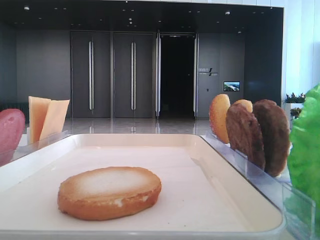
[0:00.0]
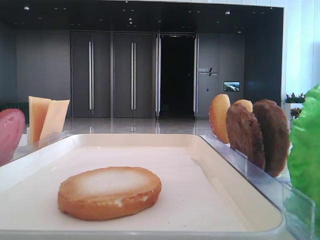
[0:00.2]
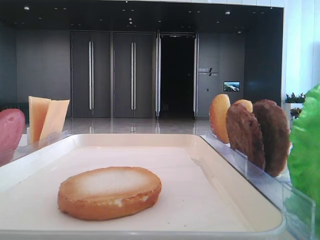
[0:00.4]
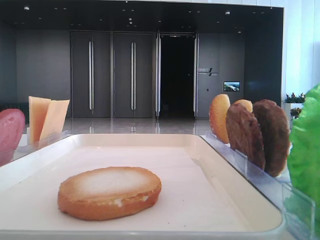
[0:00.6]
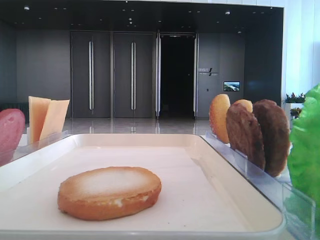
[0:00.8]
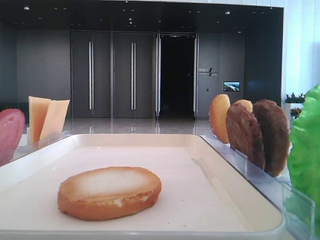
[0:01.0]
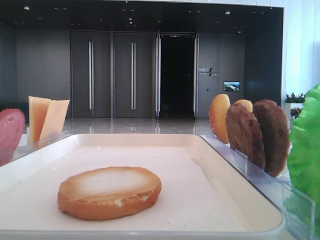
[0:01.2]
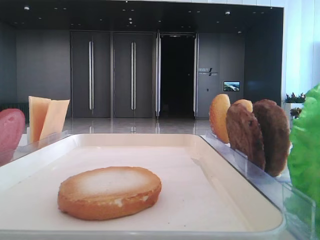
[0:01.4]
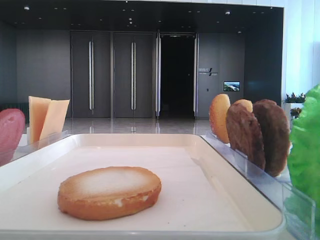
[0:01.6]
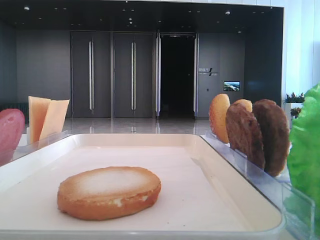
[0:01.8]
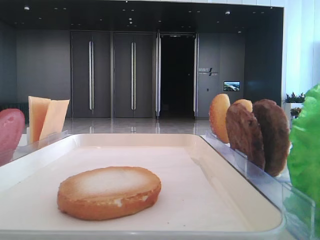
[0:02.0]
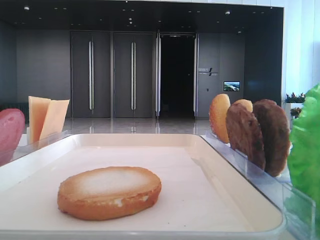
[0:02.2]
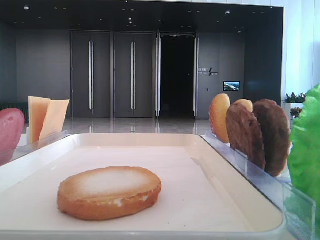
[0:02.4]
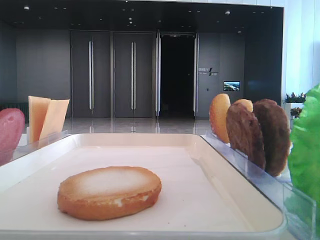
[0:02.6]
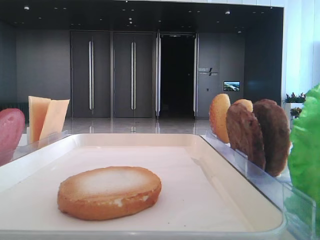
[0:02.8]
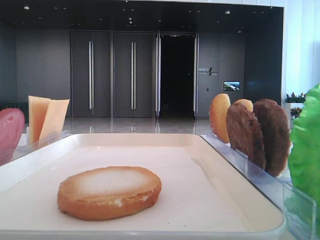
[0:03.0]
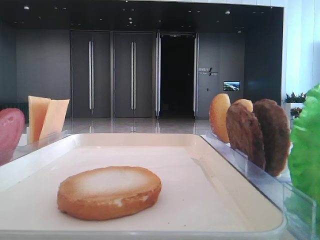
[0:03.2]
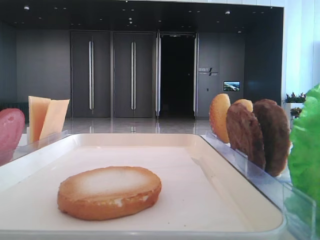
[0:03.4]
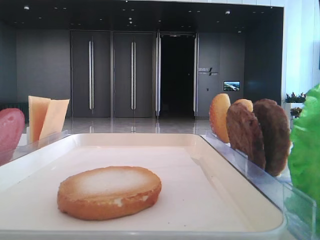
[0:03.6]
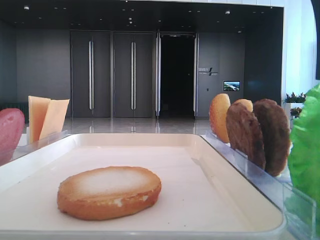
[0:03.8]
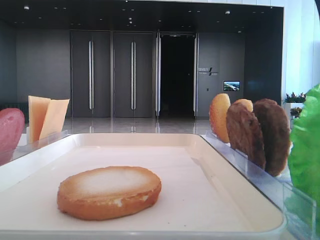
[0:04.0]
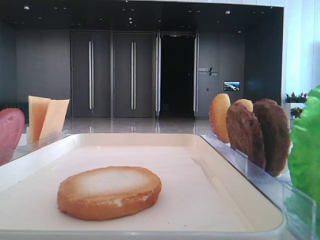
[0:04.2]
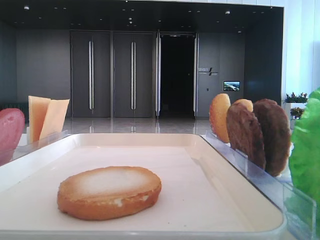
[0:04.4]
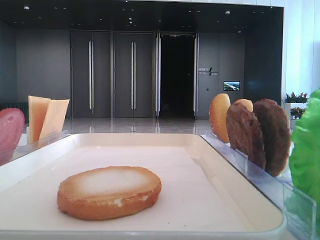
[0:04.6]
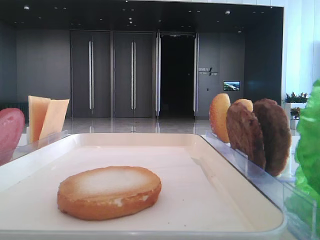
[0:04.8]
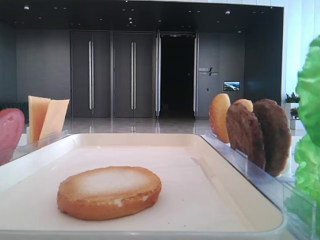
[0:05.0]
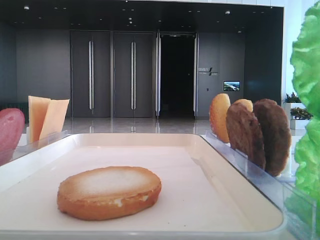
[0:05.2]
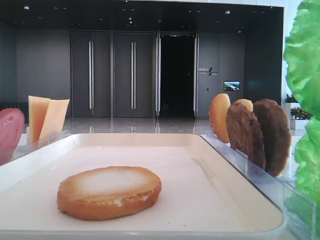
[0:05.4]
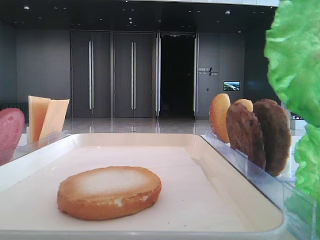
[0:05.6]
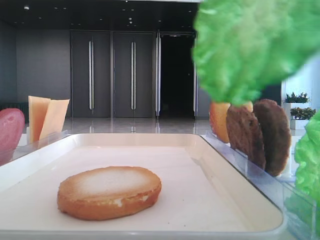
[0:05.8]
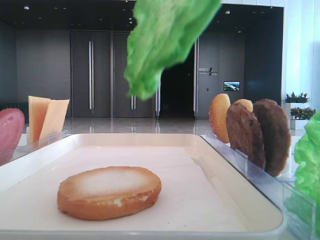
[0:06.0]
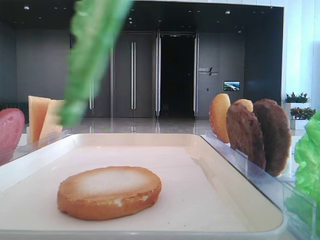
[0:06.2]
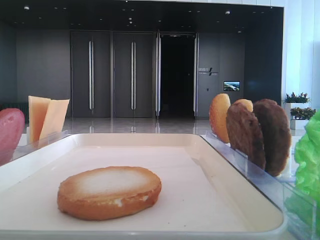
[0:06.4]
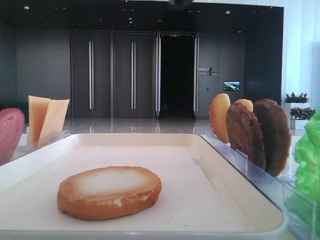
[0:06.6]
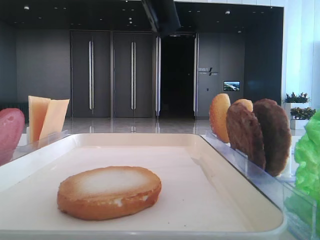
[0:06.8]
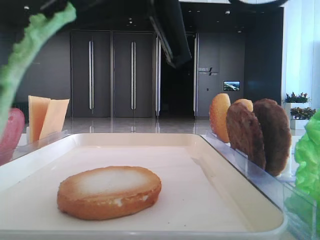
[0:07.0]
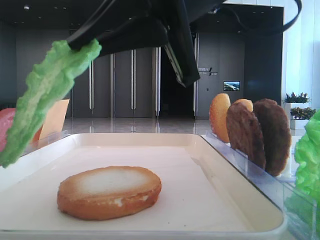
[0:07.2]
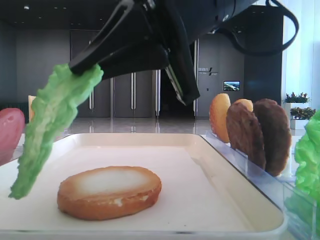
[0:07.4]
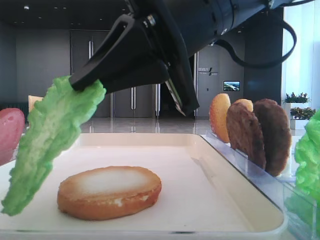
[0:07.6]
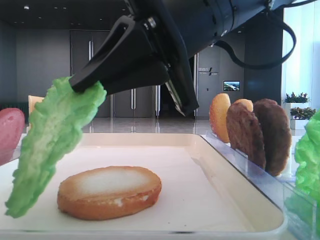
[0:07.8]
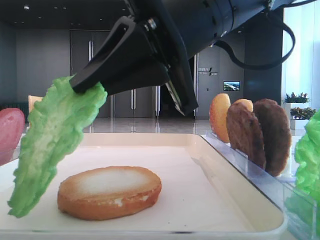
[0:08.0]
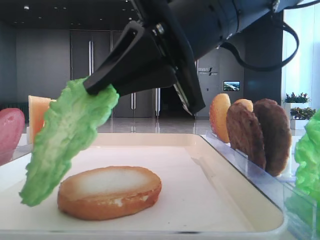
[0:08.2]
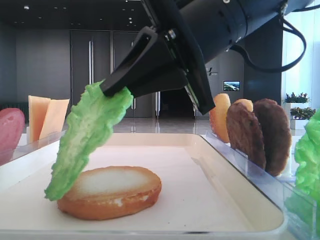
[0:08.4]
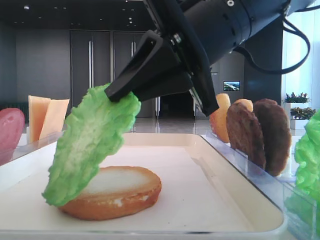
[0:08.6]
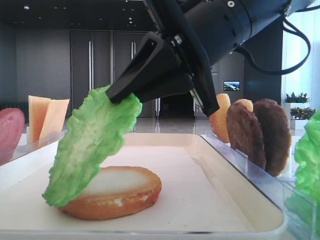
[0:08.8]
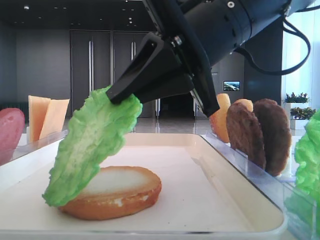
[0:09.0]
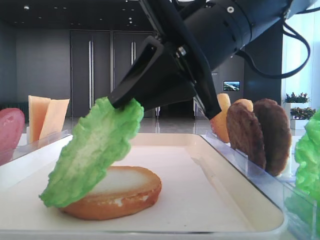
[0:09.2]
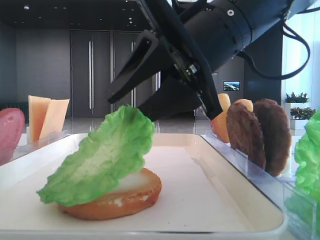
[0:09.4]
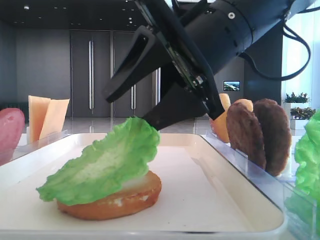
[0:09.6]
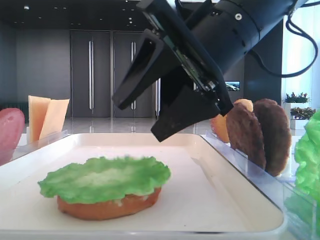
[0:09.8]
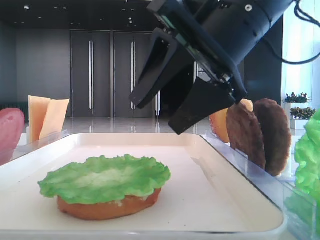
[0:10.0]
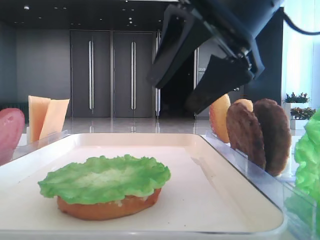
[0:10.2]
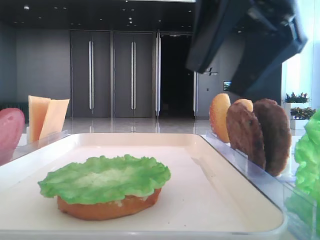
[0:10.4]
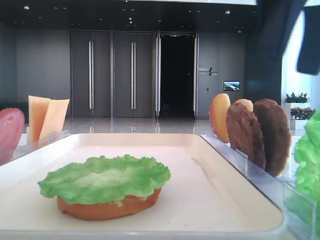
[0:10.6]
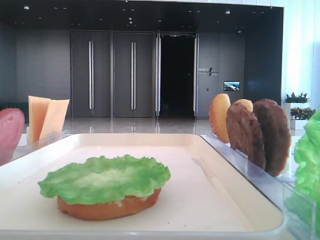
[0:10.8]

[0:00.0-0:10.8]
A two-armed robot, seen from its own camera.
Step, 0:04.8 to 0:09.6: Place the lettuce leaf on the bottom bread with the right hand.
0:04.6 to 0:06.2: The right gripper moves to the left and upward, some 10 cm.
0:06.2 to 0:07.8: The right gripper is displaced forward and downward by some 15 cm.
0:09.2 to 0:10.8: The right gripper shifts some 15 cm to the right, upward and backward, and opens.

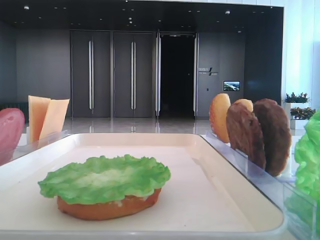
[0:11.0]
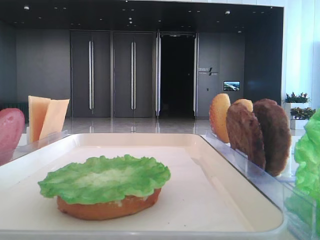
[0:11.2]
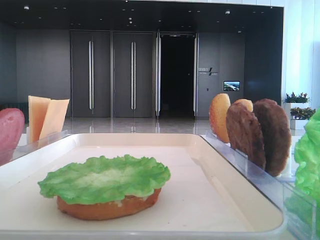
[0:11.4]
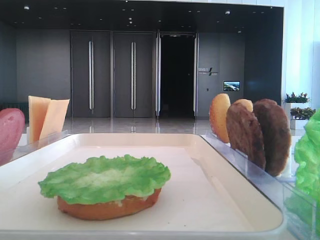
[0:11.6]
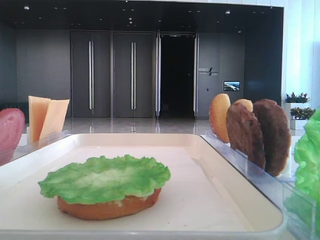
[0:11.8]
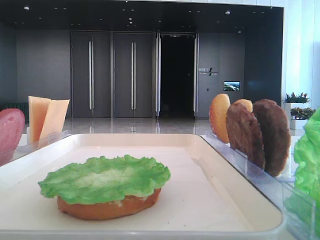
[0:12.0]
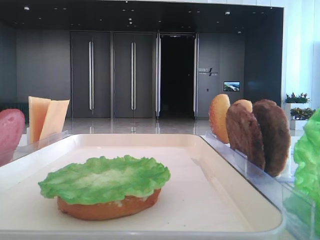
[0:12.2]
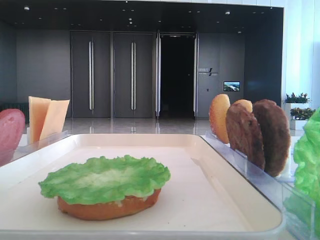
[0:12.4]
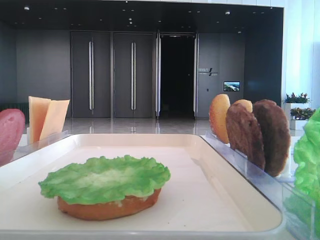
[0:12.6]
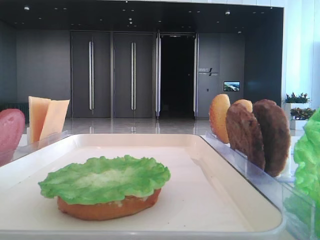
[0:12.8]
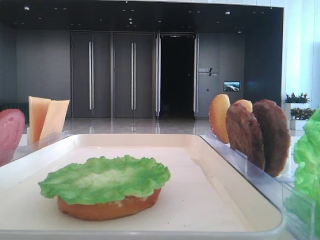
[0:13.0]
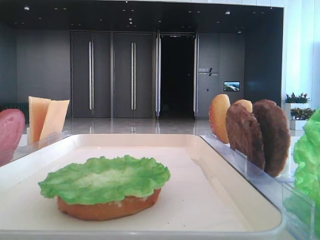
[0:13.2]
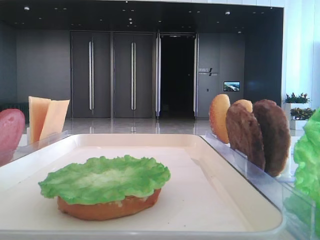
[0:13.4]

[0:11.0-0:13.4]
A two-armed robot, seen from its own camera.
0:11.0 to 0:12.2: The right gripper moves backward and to the right, roughly 15 cm.

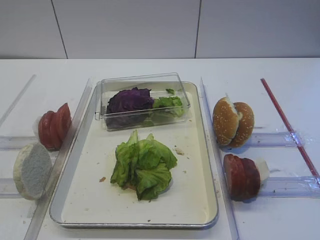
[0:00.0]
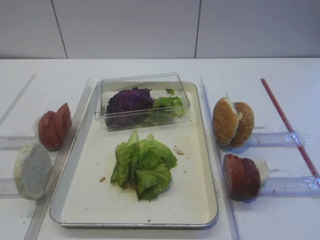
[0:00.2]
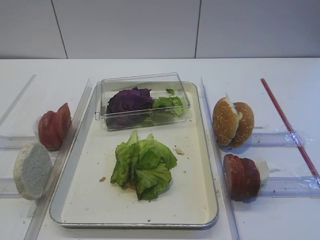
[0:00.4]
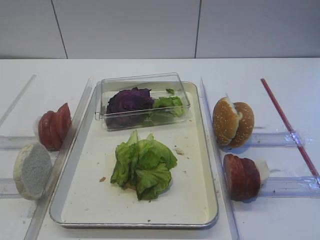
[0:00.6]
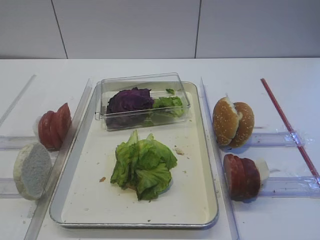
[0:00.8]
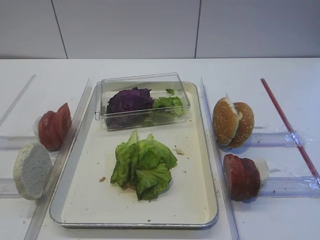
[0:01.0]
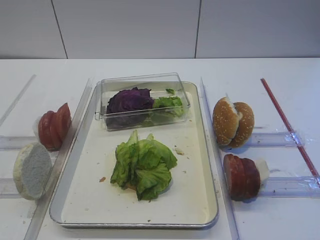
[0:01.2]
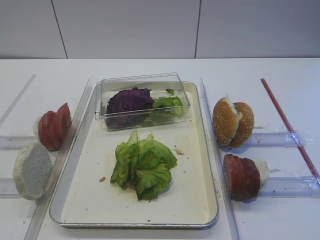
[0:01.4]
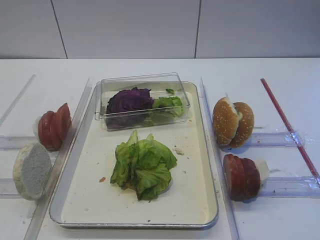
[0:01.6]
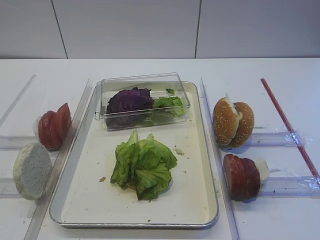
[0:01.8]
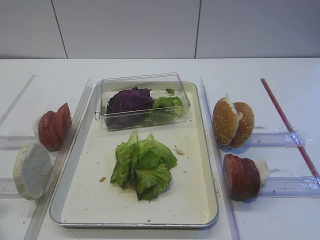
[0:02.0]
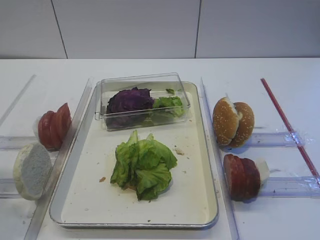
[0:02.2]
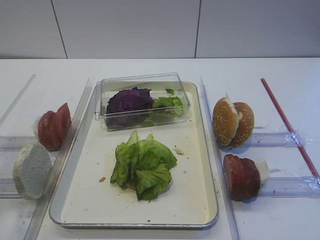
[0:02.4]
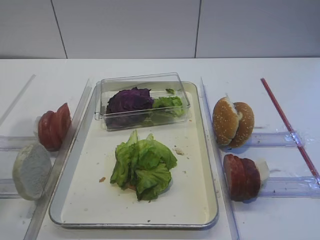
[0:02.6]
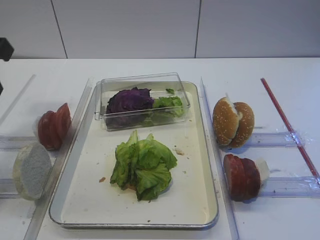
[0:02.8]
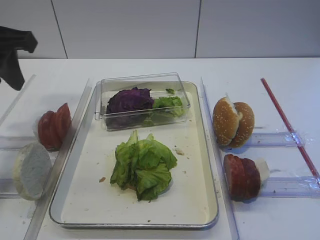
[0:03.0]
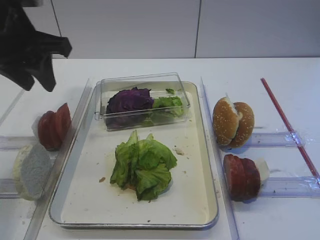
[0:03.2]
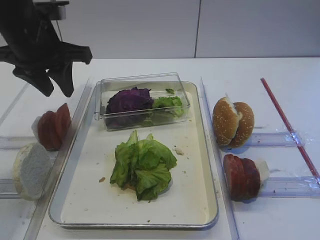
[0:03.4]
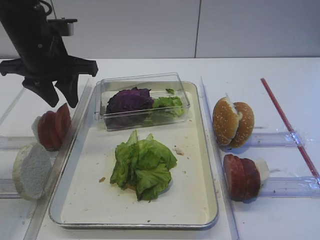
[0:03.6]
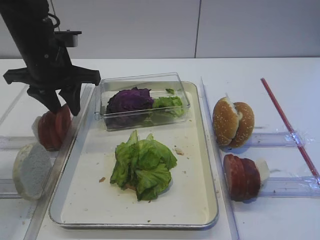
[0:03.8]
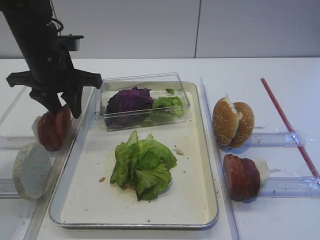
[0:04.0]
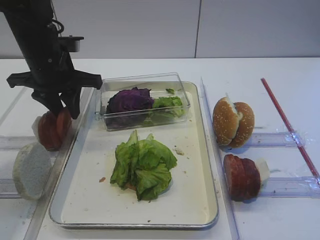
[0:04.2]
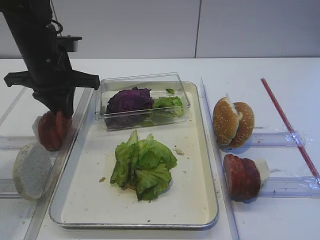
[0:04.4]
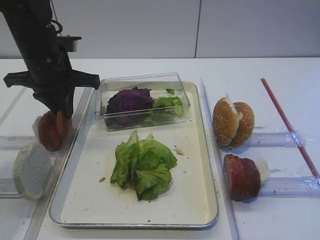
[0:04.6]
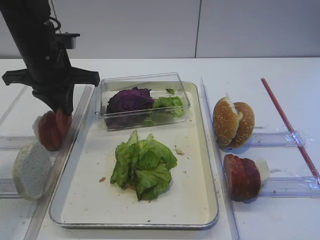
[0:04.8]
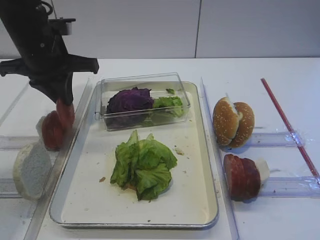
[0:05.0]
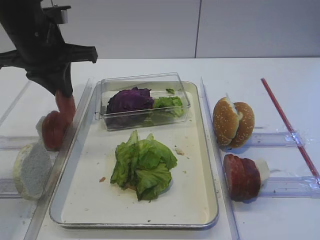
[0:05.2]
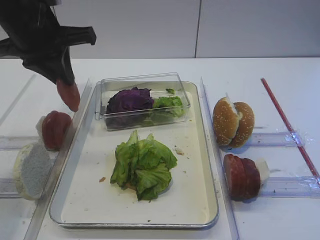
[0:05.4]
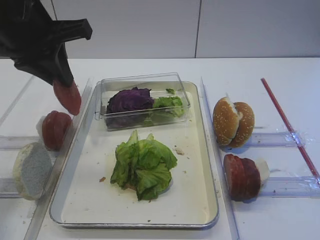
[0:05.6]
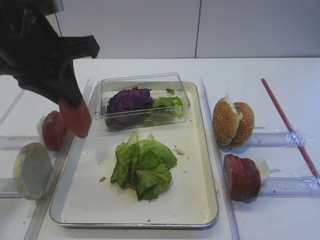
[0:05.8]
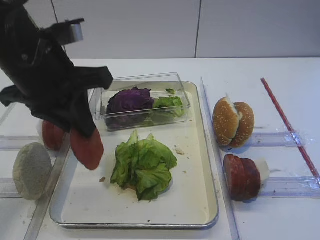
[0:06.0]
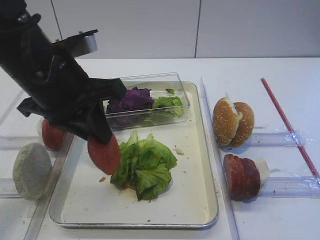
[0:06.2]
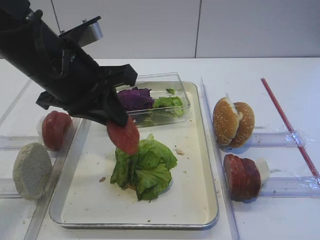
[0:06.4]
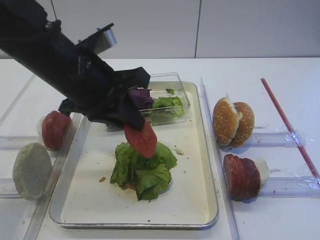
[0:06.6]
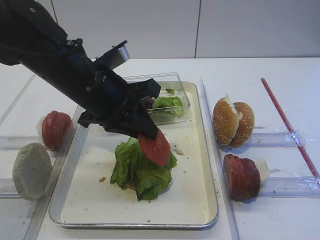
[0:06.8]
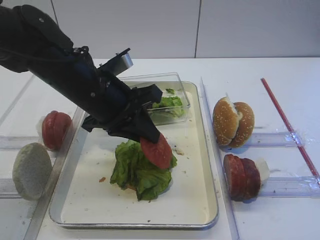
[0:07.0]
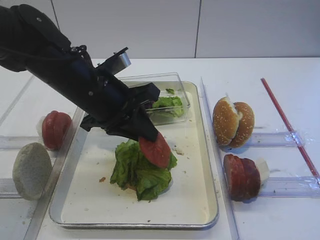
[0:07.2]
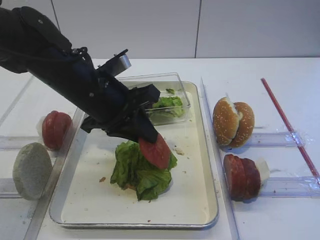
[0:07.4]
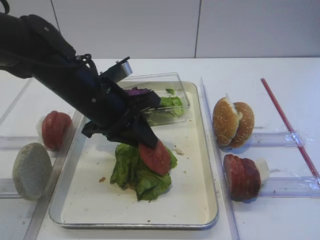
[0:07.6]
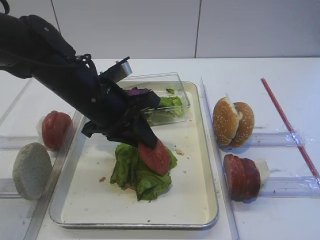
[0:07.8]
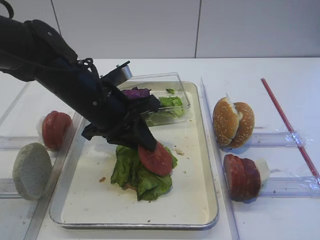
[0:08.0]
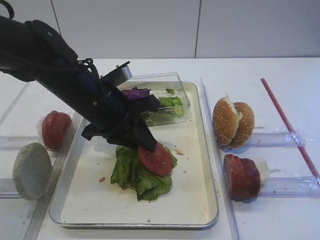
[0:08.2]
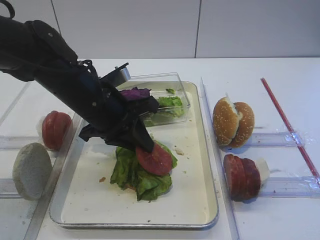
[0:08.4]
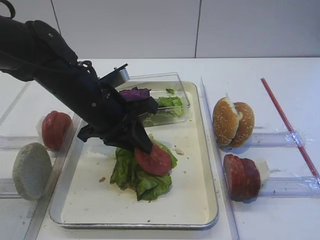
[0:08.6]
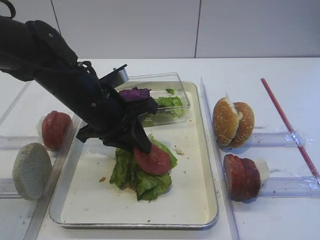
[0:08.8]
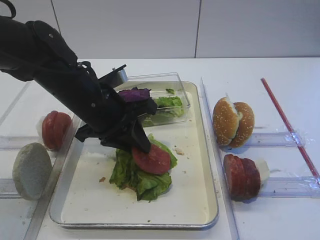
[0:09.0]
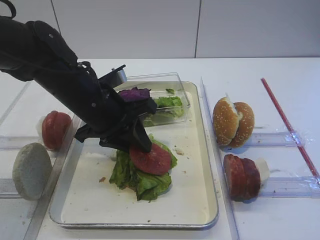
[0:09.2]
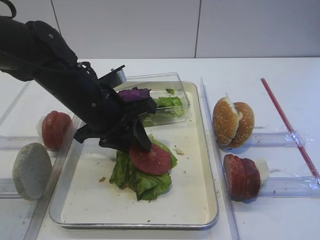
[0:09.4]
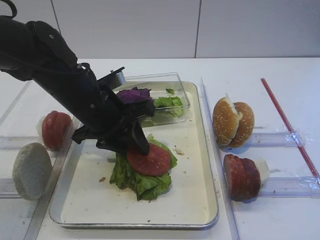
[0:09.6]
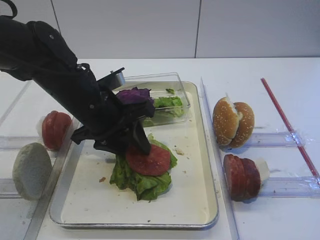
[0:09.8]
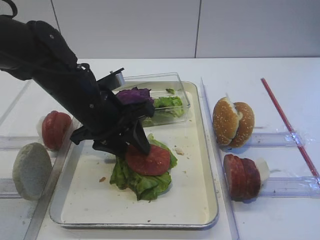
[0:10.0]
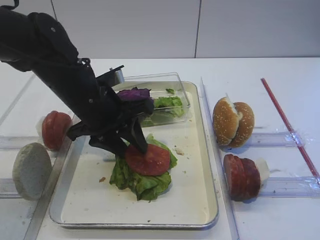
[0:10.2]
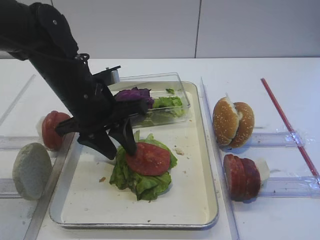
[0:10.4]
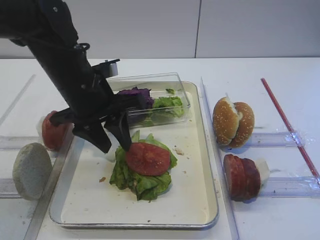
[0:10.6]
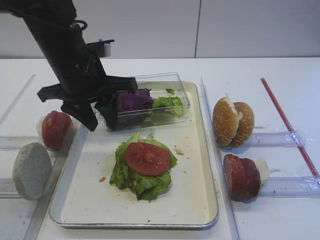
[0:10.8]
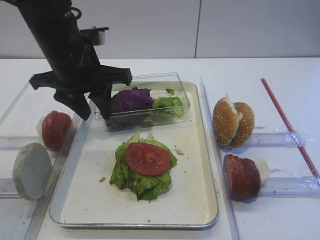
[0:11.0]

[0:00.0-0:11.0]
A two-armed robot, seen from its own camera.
Step, 0:00.0 to 0:05.2: Pick up the tomato slice with the left gripper.
Step, 0:05.6 to 0:10.8: Place the tomato slice on the lettuce leaf with the left gripper.
0:01.6 to 0:03.2: The left gripper heads forward, covering some 30 cm.
0:03.2 to 0:04.8: The left gripper travels downward and forward by roughly 10 cm, and closes its fingers.
0:04.8 to 0:06.2: The left gripper is displaced backward by approximately 10 cm.
0:06.2 to 0:07.8: The left gripper shifts roughly 5 cm downward.
0:07.8 to 0:09.4: The left gripper opens.
0:09.4 to 0:11.0: The left gripper heads upward, covering some 5 cm, and opens.
